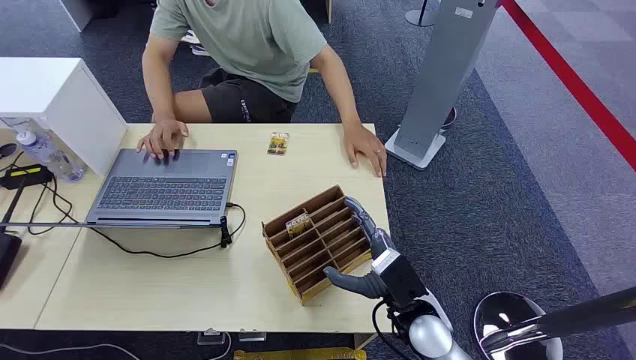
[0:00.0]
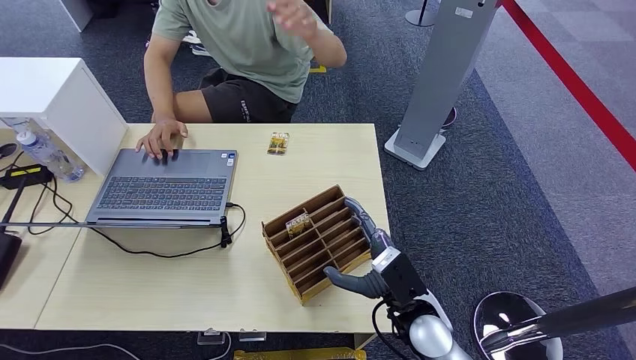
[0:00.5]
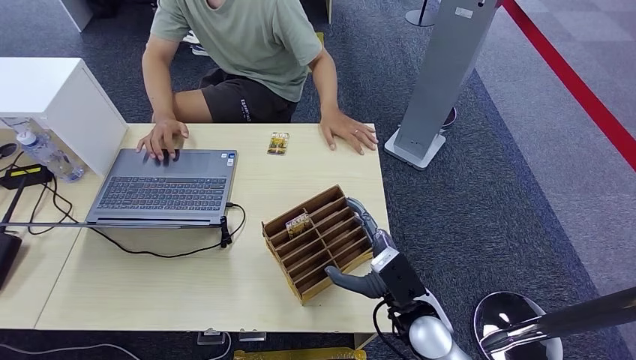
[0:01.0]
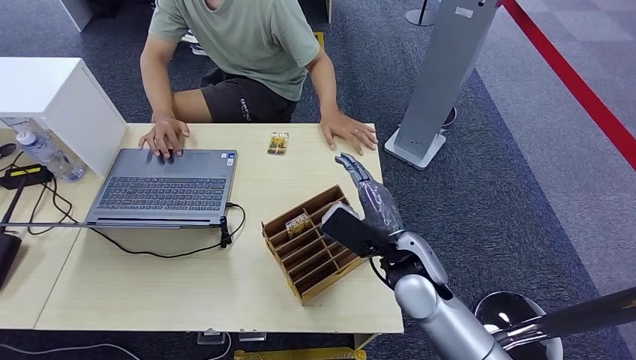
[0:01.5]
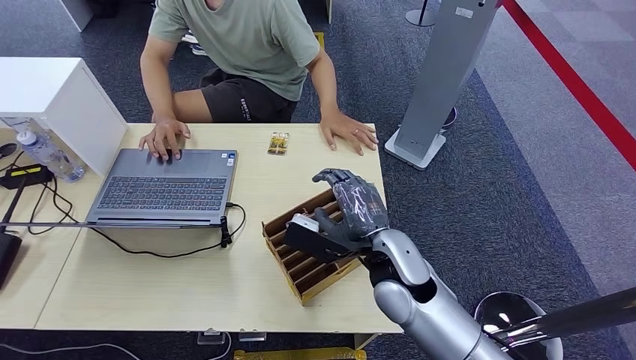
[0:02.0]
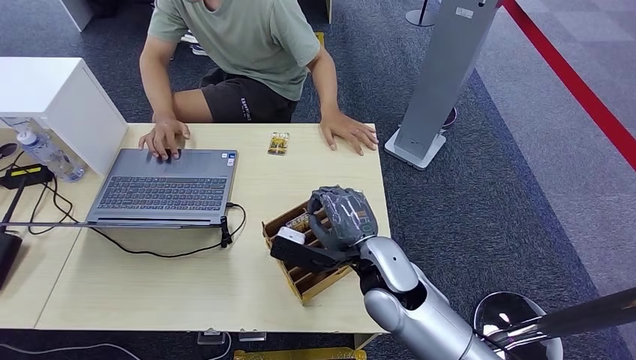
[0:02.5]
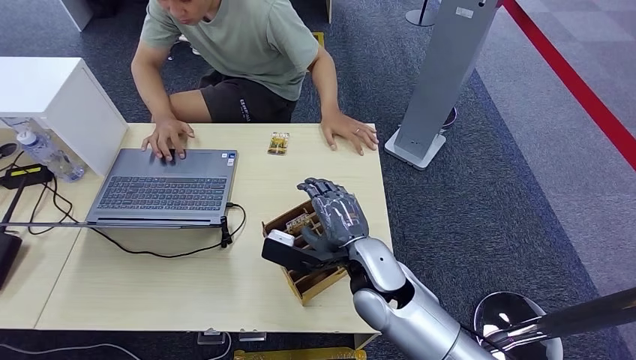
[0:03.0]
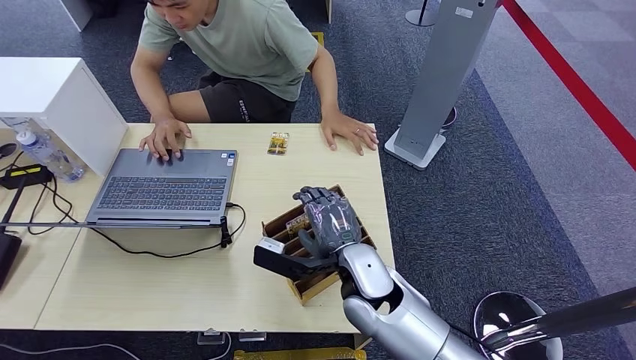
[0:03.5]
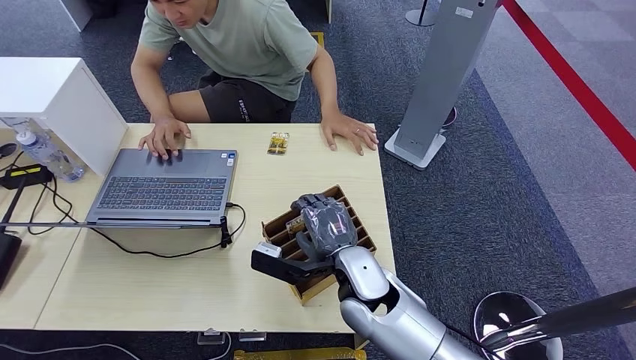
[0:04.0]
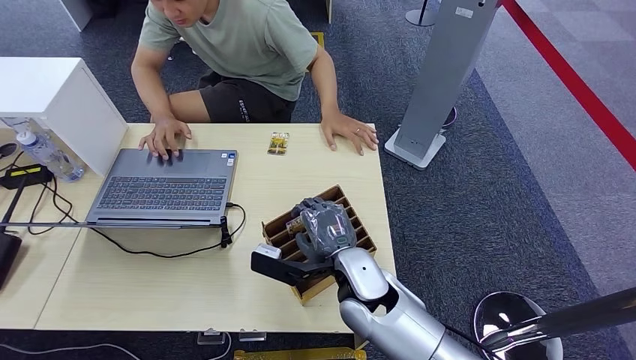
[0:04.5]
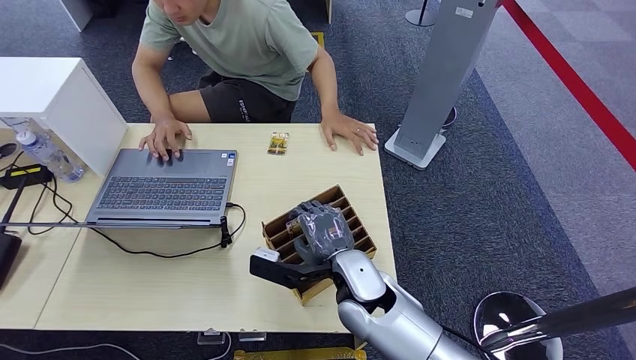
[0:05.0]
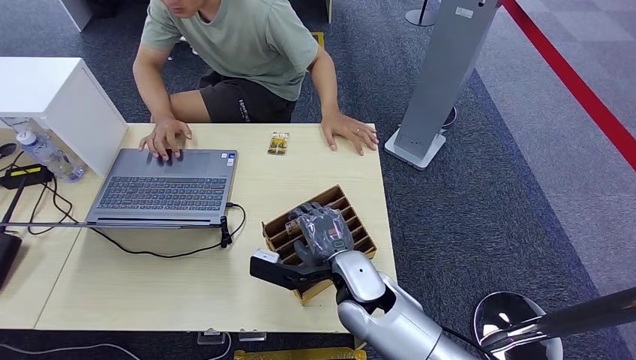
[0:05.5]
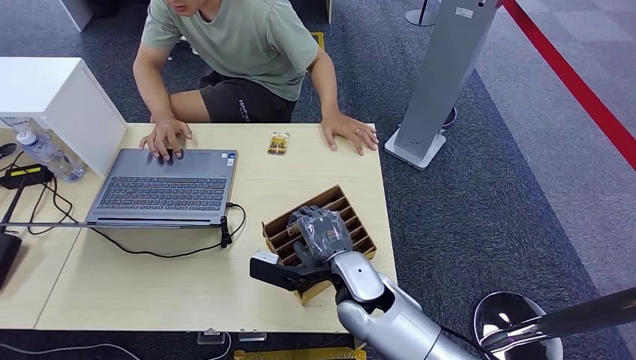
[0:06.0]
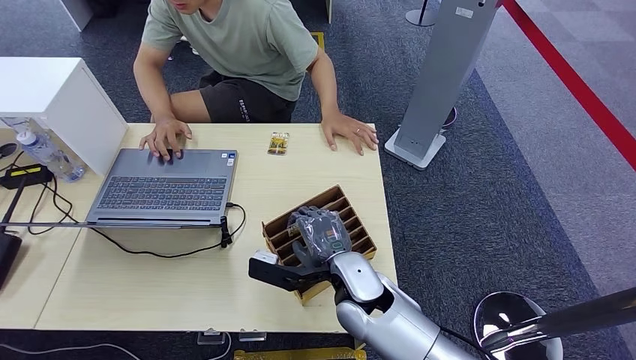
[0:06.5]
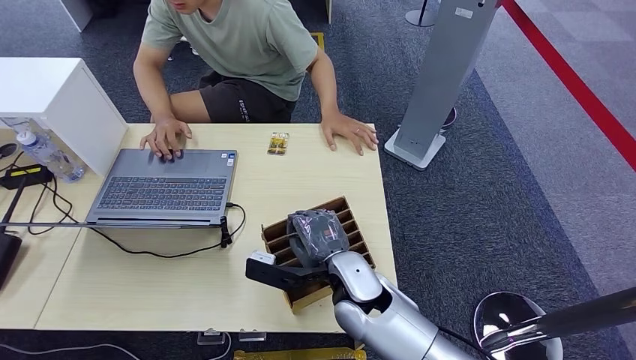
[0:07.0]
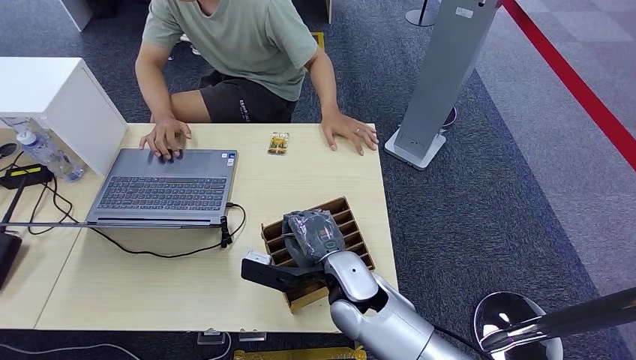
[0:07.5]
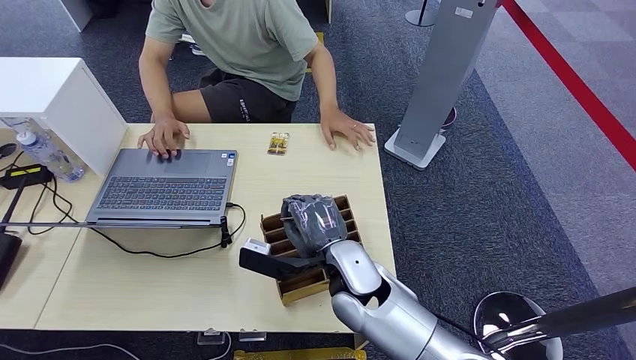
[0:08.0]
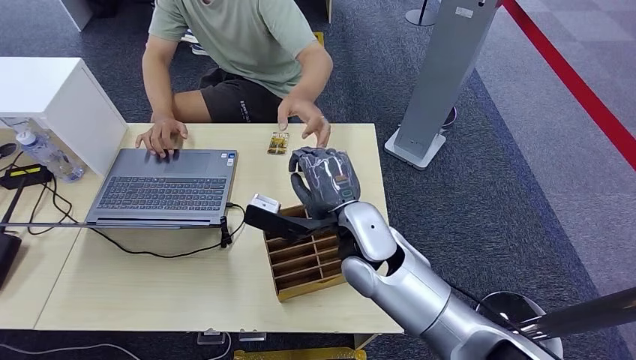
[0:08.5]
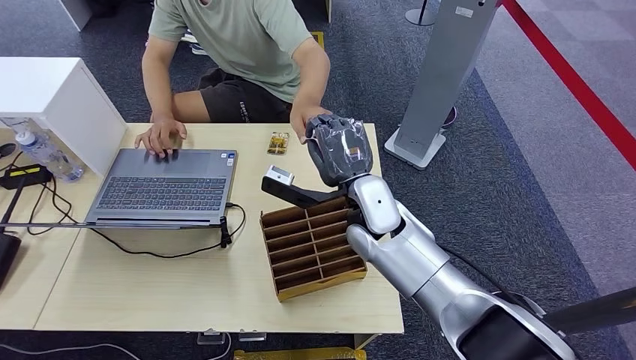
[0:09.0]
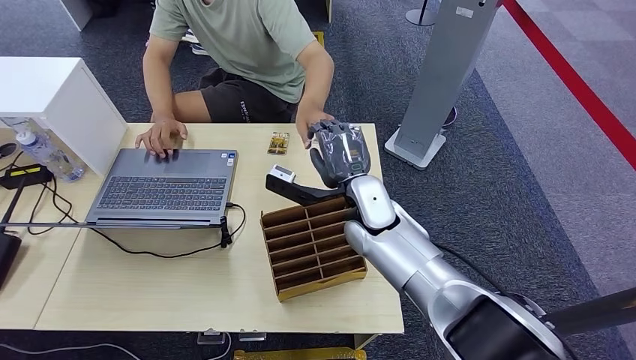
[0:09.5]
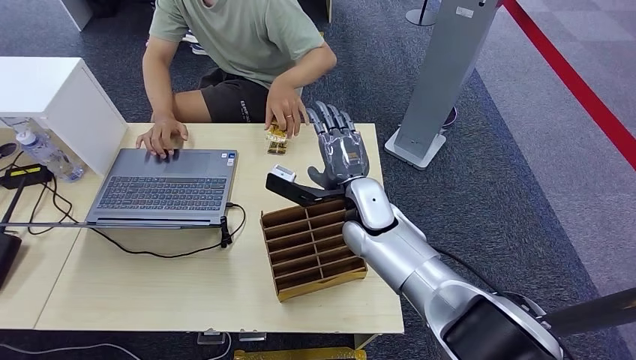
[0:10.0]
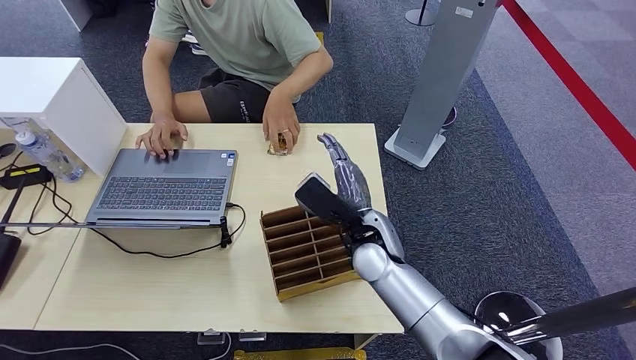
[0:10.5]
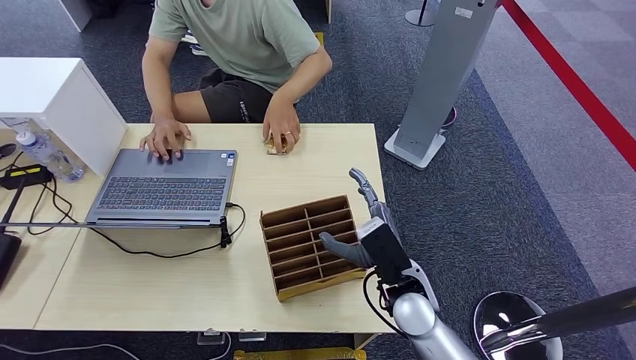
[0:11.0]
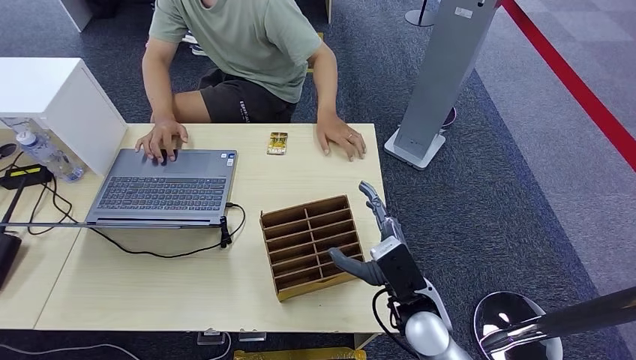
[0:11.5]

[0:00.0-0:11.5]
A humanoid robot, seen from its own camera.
Step, 0:00.0 to 0:08.0: Pick up the key card from the card box.
Step, 0:08.5 to 0:11.5: Hand the key card to the target.
0:02.0 to 0:04.0: The right hand shifts roughly 5 cm to the left.
0:04.0 to 0:06.0: The hands stay close to where they were, moving slightly.
0:06.0 to 0:07.5: Both hands stay about where they are.
0:07.5 to 0:09.5: The right hand travels forward and upward by roughly 15 cm.
0:09.5 to 0:11.5: The right hand is displaced backward, to the right and downward by some 20 cm.
